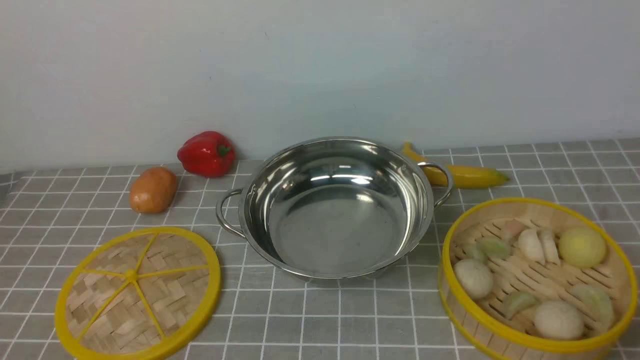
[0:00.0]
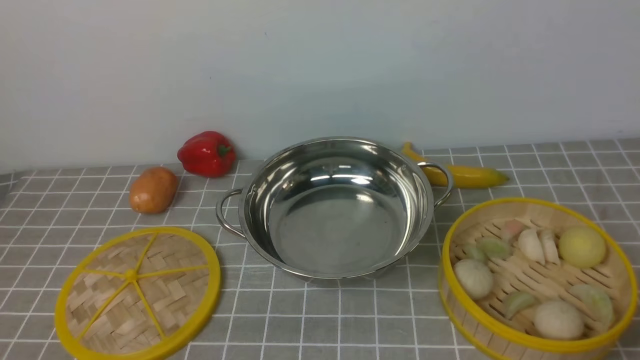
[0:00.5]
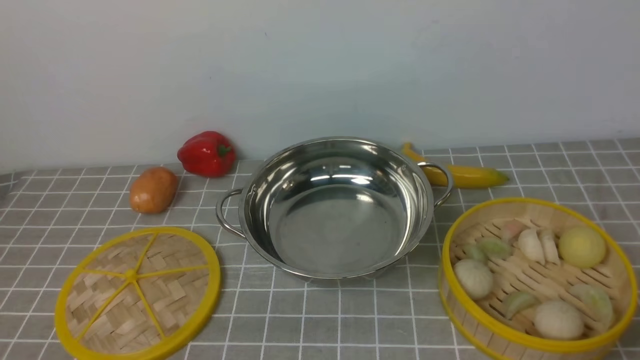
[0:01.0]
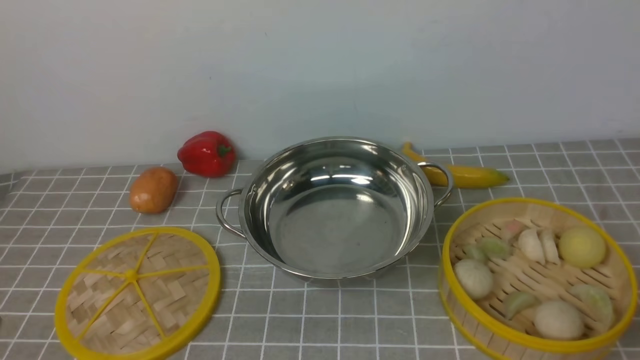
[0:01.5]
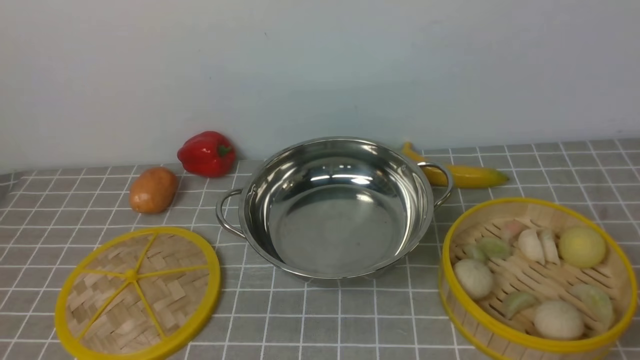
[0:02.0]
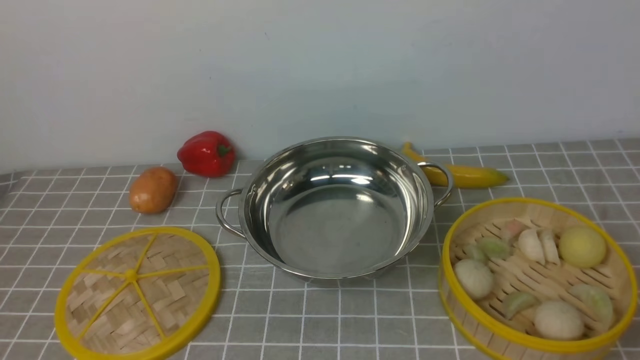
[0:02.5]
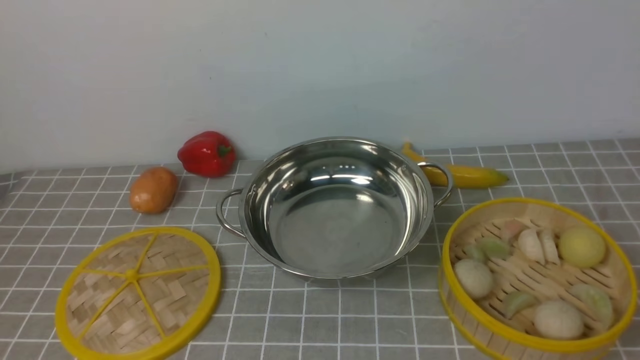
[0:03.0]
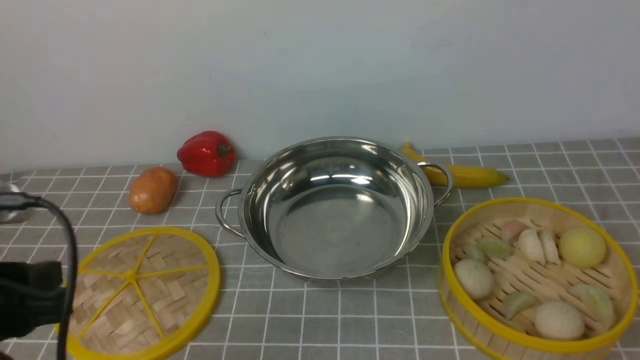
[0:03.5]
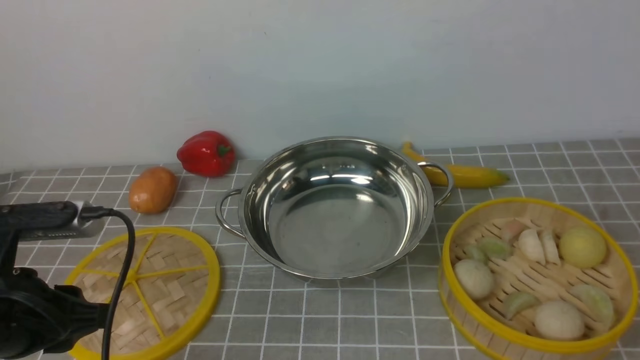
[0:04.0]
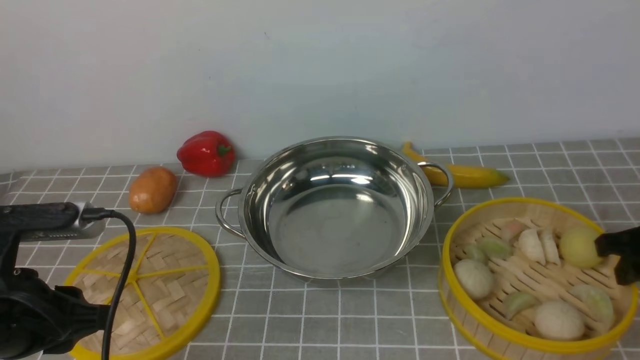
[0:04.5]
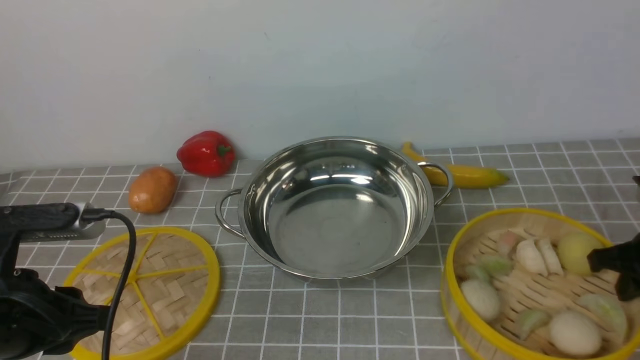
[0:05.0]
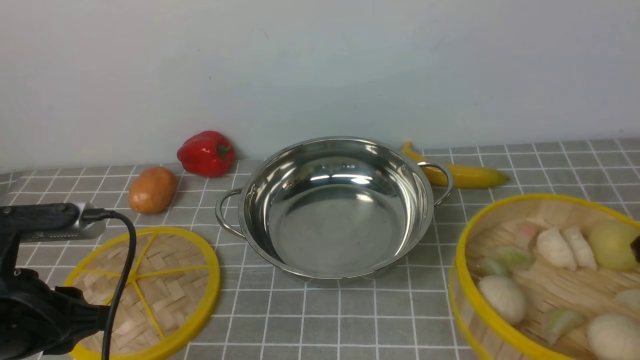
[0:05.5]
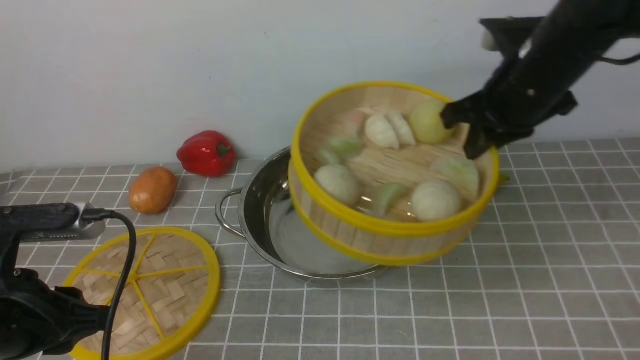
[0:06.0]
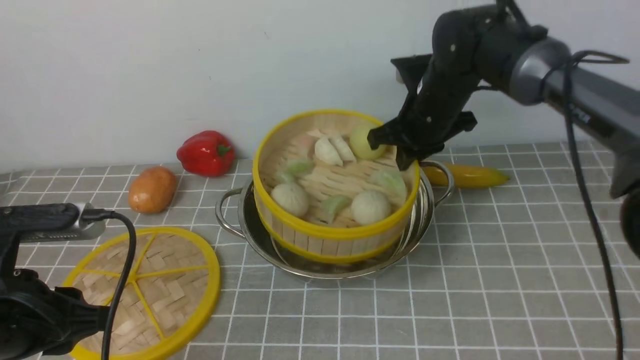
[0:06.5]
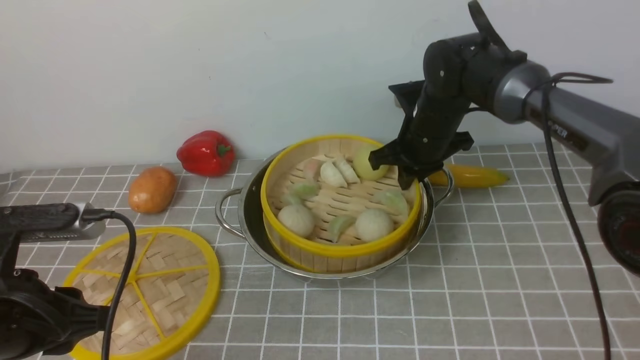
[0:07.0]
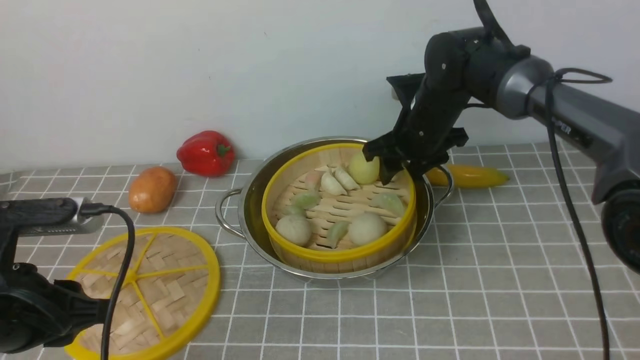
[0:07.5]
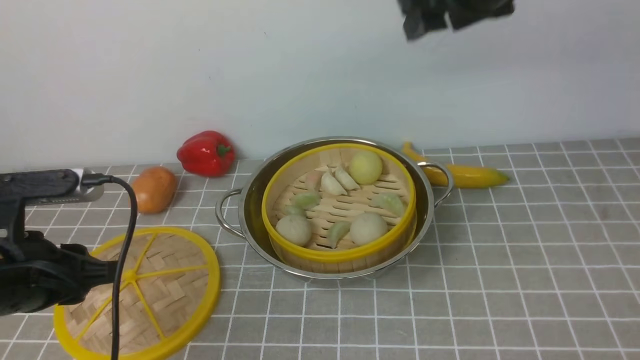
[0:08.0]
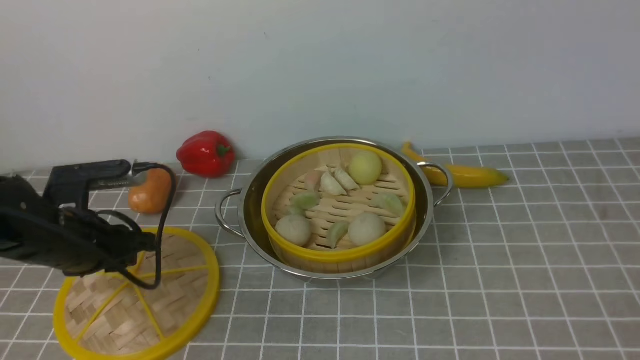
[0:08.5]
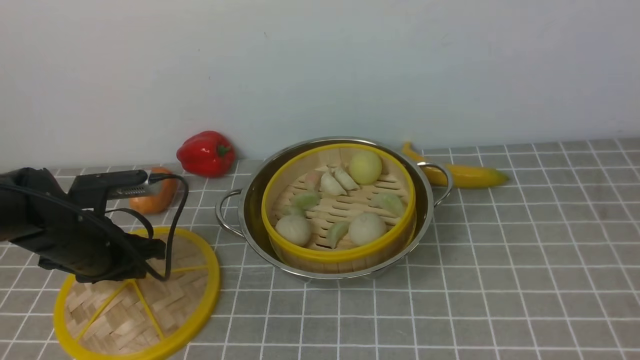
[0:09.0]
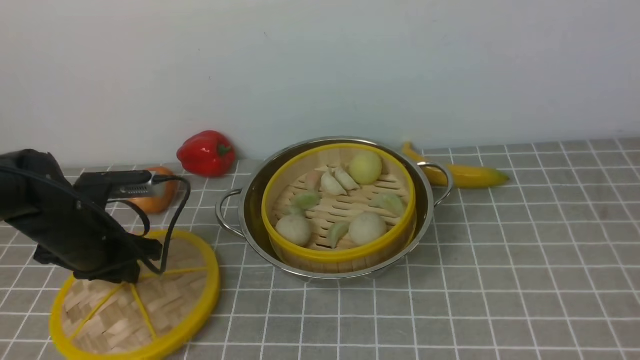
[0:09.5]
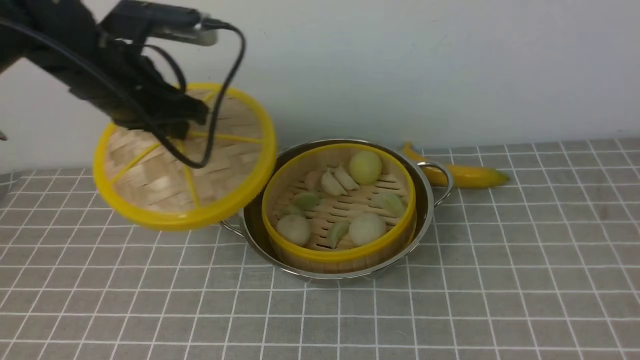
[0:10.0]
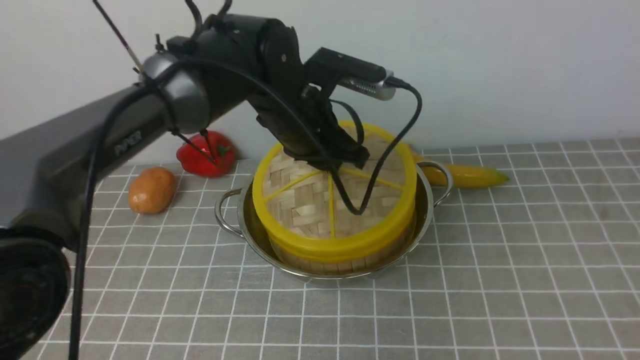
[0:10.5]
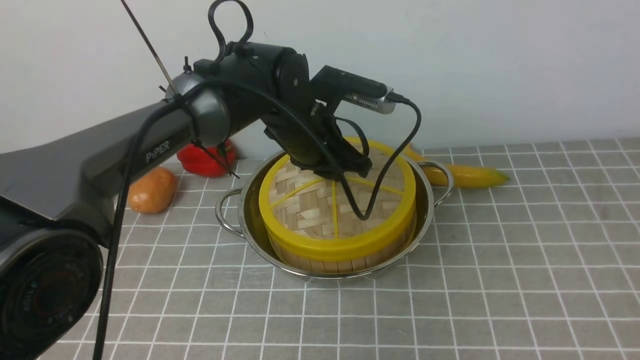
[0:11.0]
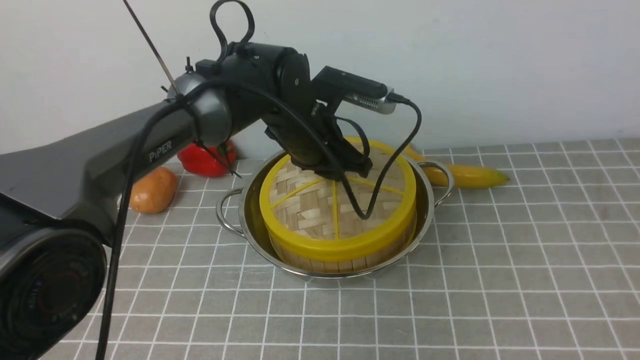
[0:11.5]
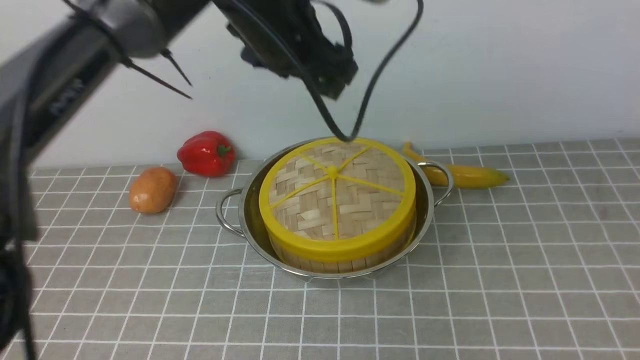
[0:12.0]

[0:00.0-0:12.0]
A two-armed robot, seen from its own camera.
Task of the whole recording: place the steamer in the pot on the grey tablecloth, and put the lid on the steamer.
Step, 0:00.0 to 0:05.0: use the right arm to lift the steamer closest to it.
Step, 0:05.5 to 0:07.5: use the right arm to put the steamer into the iron steamer pot in the middle.
Step, 0:08.0 to 0:09.5: use the left arm to lift the lid of the steamer.
Step, 0:10.0 to 0:11.5: use the left arm to place the steamer lid on the steamer.
0:02.0 to 0:04.0: The left gripper travels forward by some 15 cm.
0:04.0 to 0:06.0: The right gripper goes roughly 20 cm forward and to the left, and closes up.
0:06.0 to 0:08.0: The right gripper goes about 15 cm upward, and opens up.
0:08.0 to 0:10.0: The right gripper goes approximately 40 cm backward and to the right. The left gripper moves forward, to the right and upward, about 20 cm.
0:10.0 to 0:12.0: The left gripper goes roughly 15 cm to the right and upward, and opens.

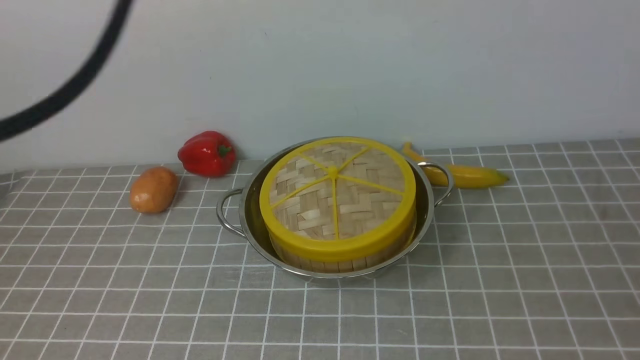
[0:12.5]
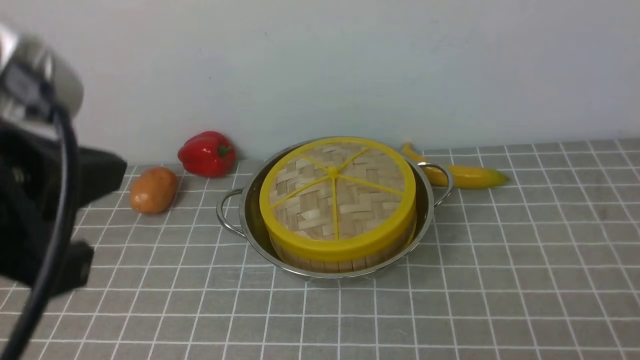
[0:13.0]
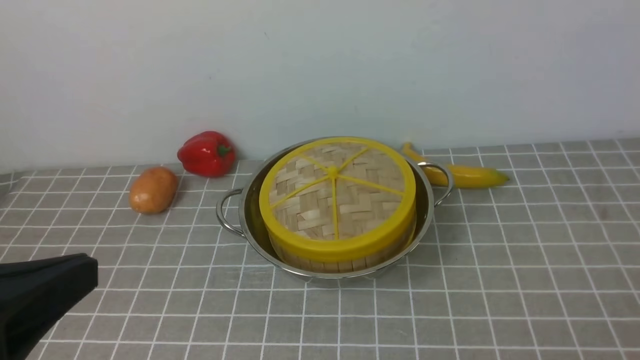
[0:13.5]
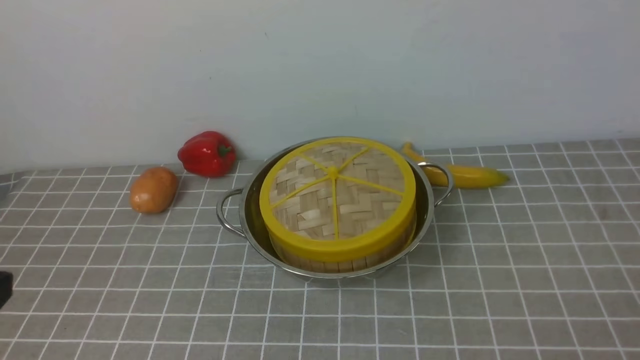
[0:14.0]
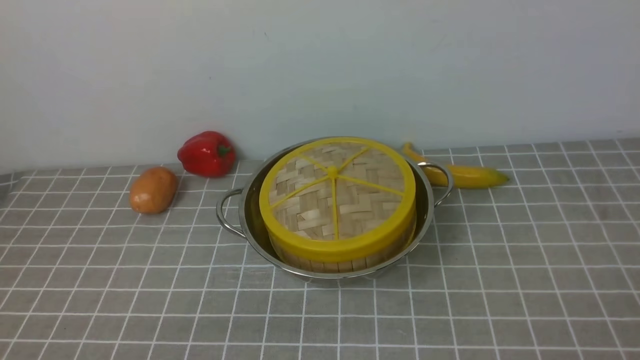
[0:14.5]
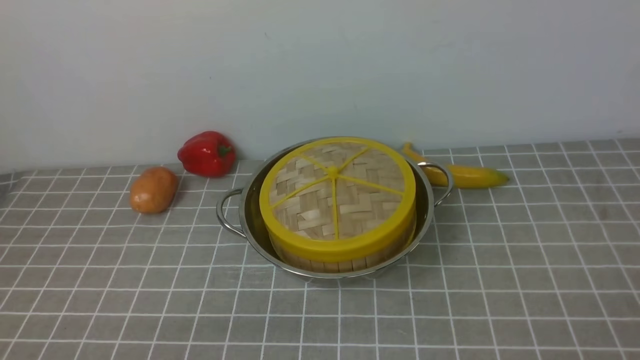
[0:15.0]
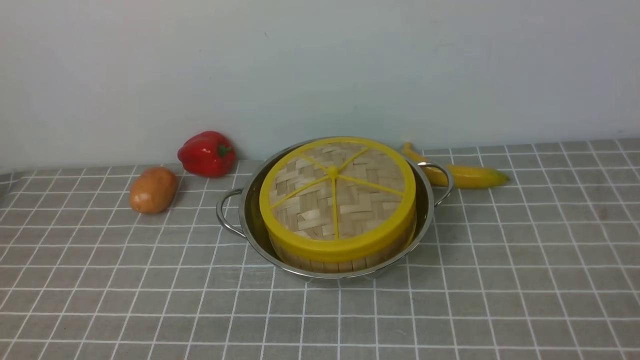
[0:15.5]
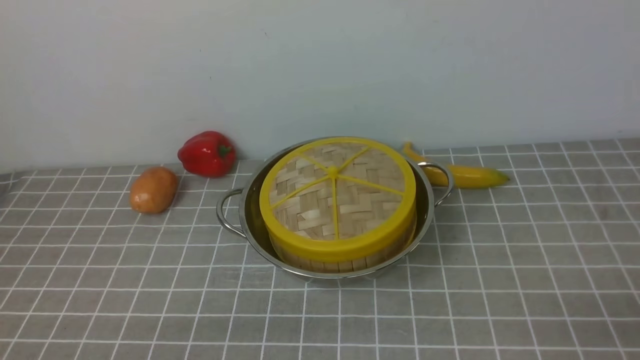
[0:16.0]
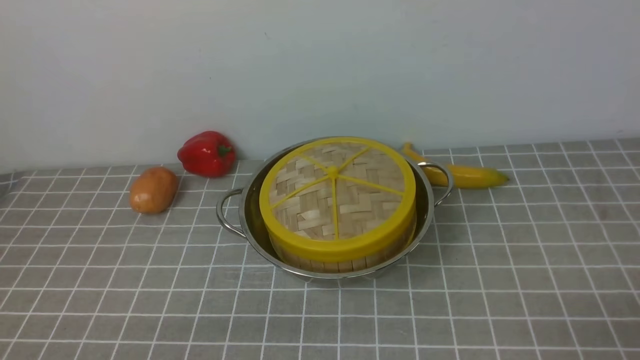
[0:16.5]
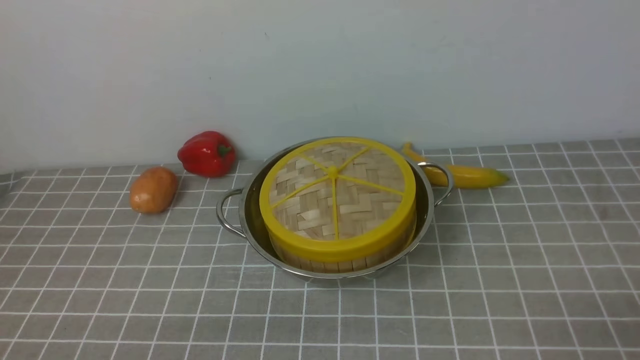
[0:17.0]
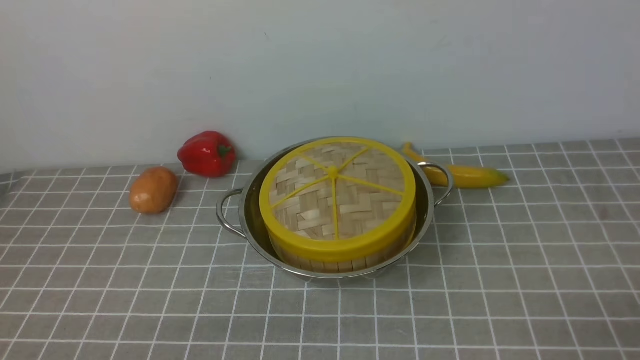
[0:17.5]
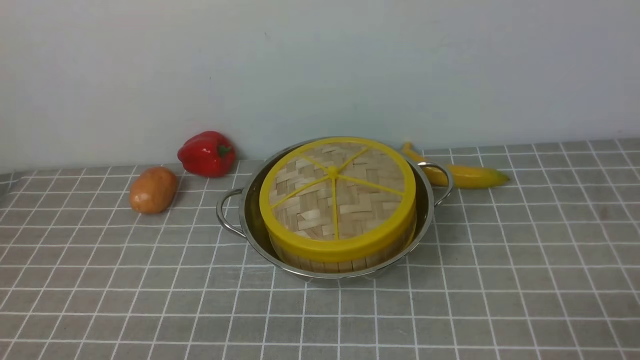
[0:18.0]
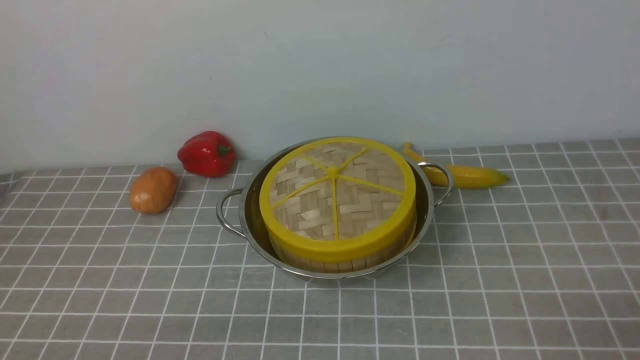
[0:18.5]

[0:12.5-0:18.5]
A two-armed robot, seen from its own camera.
Task of the whole recording: place the steamer in the pot on the grey tablecloth, and put the lid on the steamer.
0:12.5 to 0:14.5: The left gripper moves downward and backward, some 40 cm.
0:16.5 to 0:18.5: Both grippers stay about where they are.

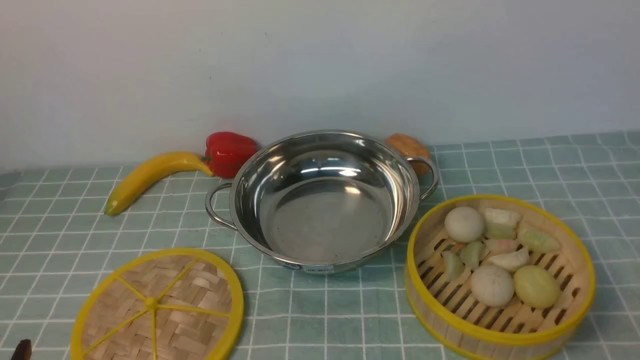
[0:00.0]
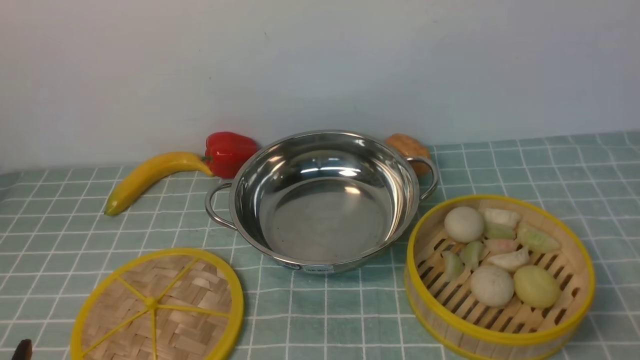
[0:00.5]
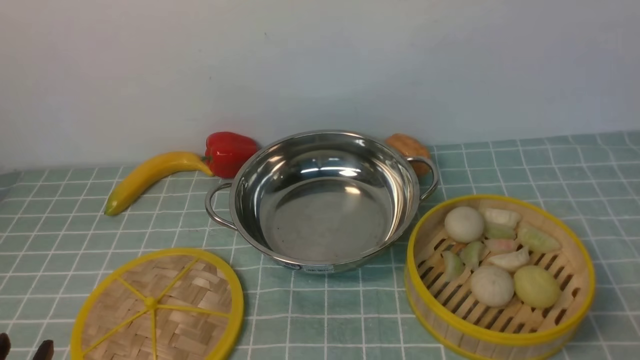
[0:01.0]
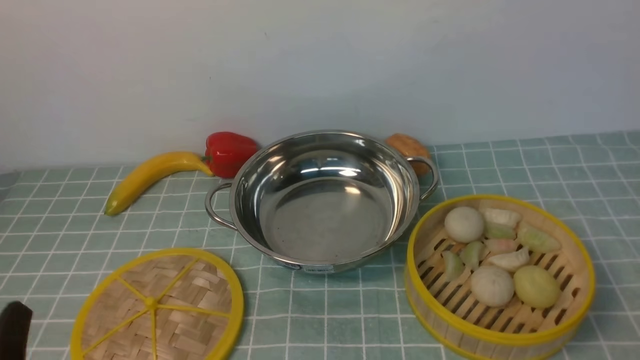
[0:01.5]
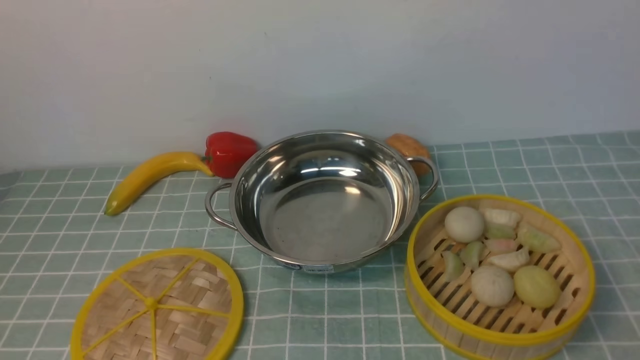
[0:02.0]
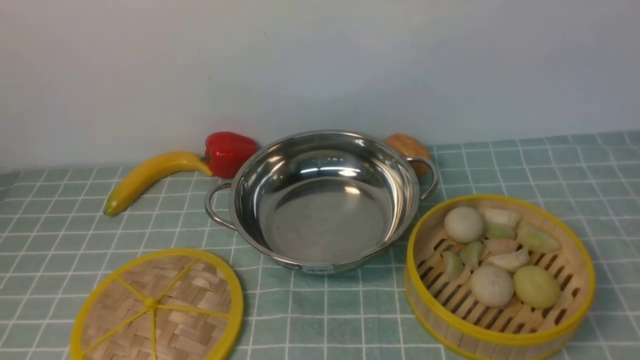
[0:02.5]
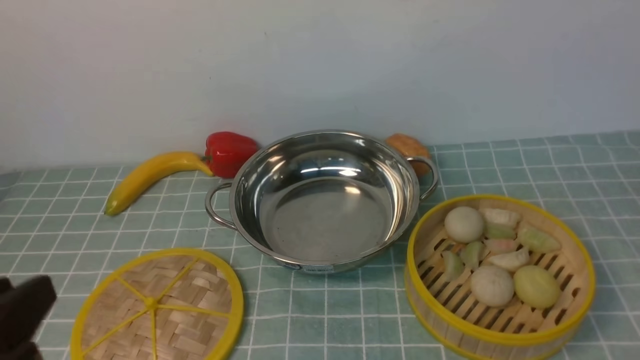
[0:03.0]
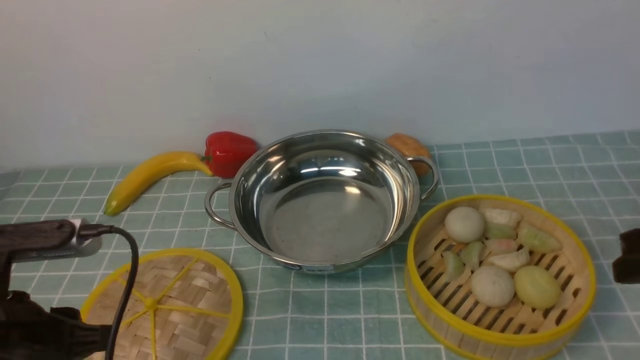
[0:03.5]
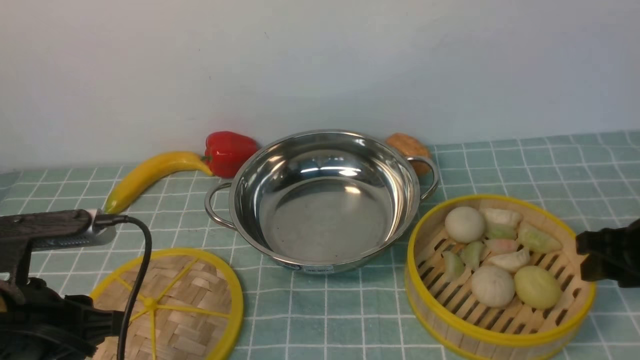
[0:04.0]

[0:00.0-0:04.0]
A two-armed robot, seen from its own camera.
Task of the whole recording: place the steamer in the pot on the blue tablecloth, and put the lid on the steamer.
0:02.0 to 0:04.0: The left gripper shifts some 15 cm forward. The right gripper travels forward by some 20 cm.
